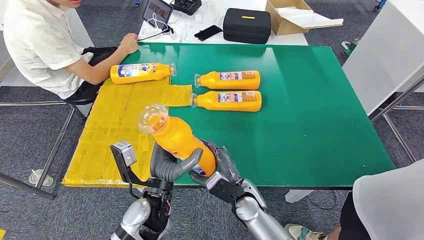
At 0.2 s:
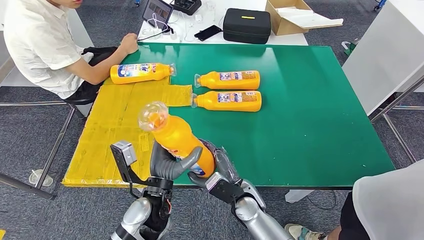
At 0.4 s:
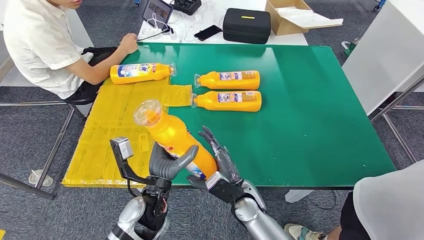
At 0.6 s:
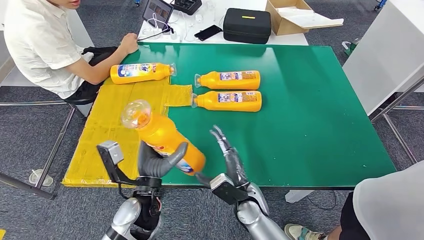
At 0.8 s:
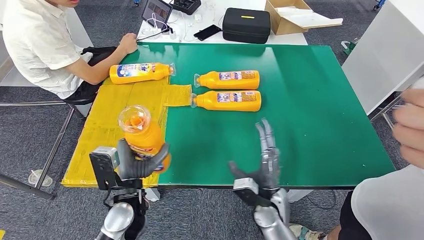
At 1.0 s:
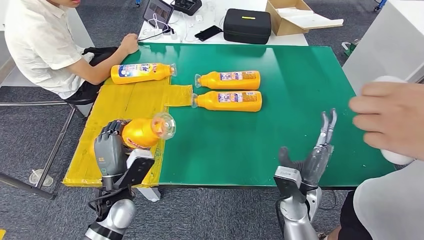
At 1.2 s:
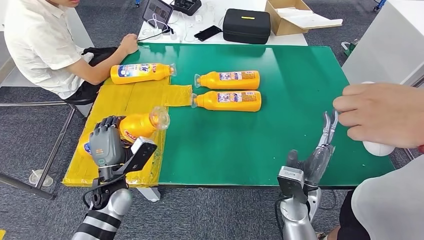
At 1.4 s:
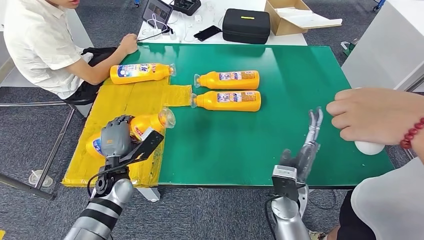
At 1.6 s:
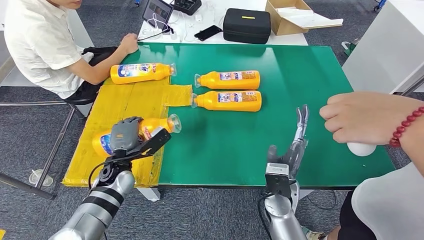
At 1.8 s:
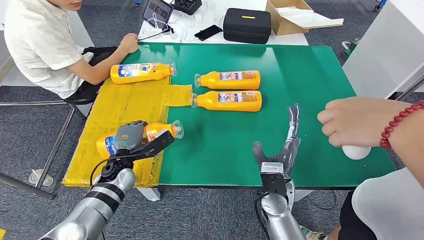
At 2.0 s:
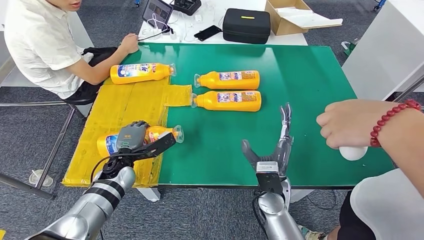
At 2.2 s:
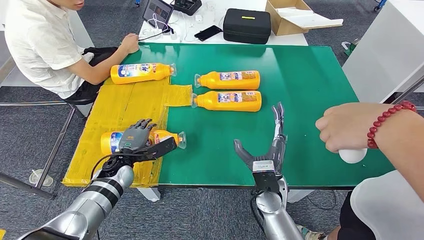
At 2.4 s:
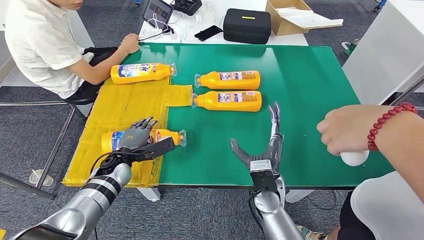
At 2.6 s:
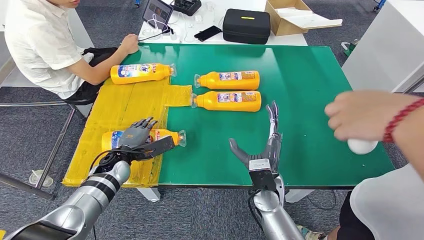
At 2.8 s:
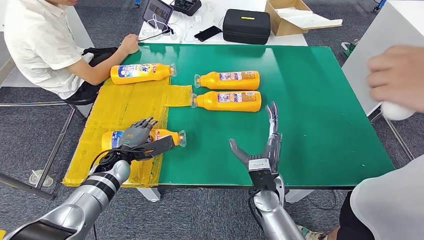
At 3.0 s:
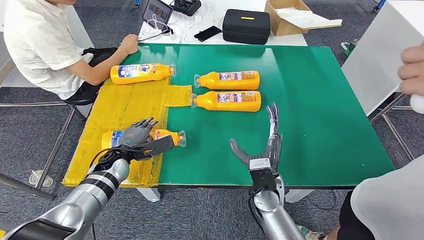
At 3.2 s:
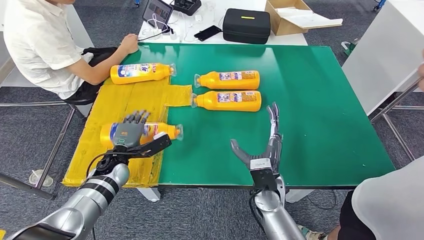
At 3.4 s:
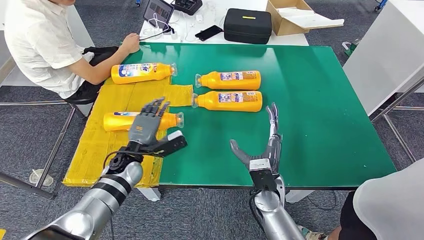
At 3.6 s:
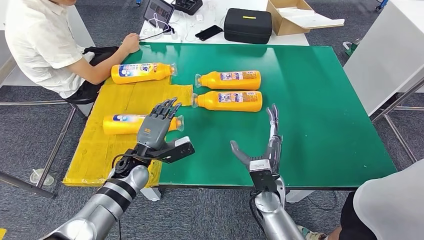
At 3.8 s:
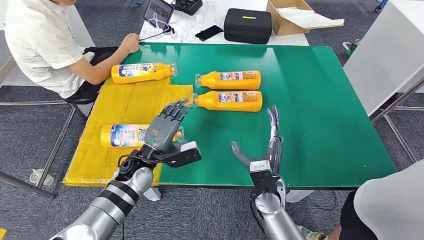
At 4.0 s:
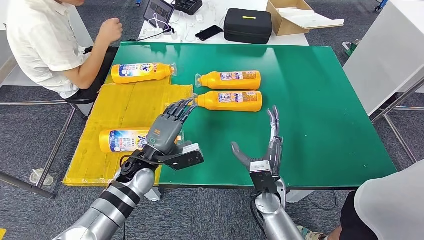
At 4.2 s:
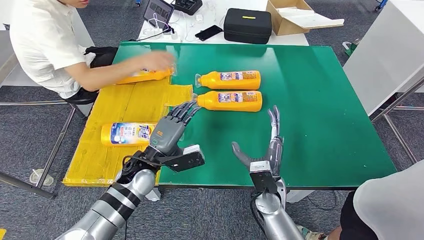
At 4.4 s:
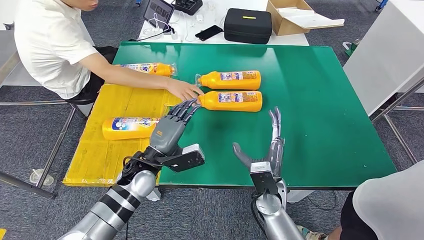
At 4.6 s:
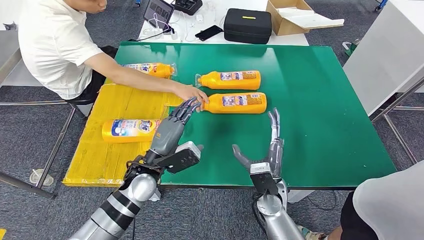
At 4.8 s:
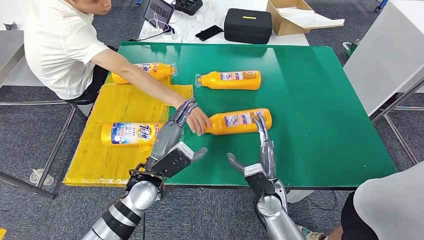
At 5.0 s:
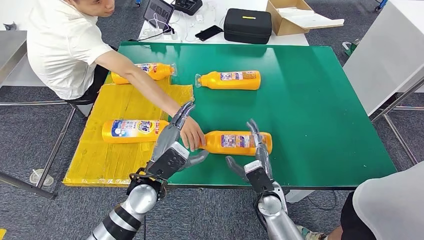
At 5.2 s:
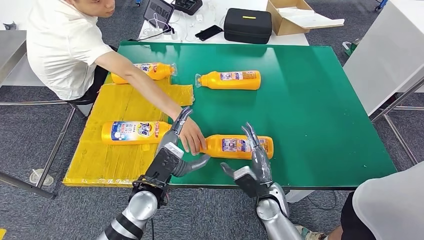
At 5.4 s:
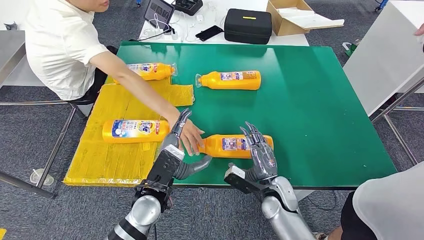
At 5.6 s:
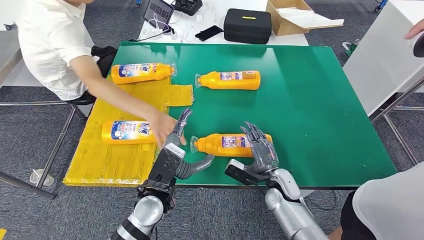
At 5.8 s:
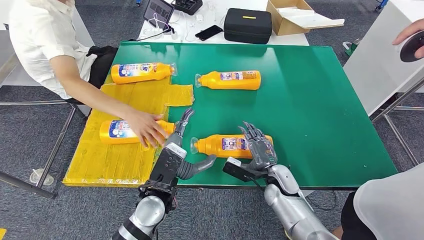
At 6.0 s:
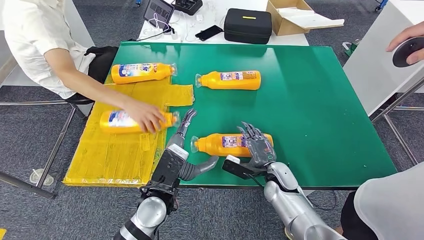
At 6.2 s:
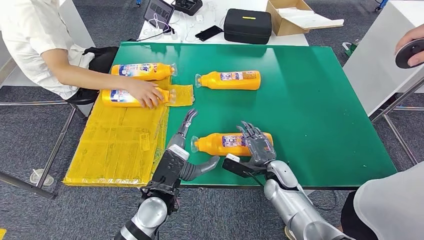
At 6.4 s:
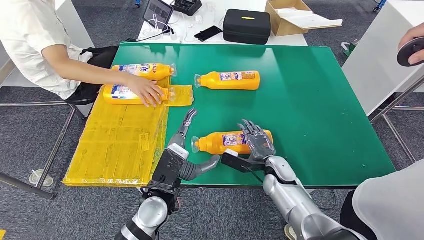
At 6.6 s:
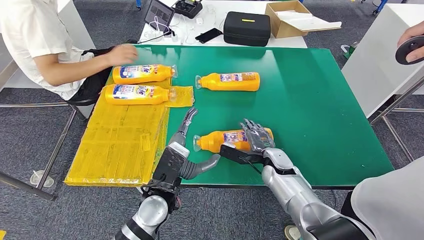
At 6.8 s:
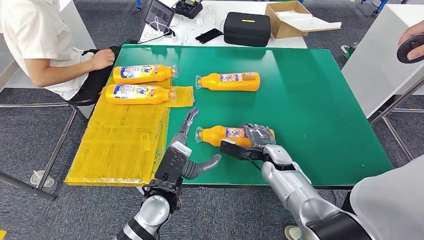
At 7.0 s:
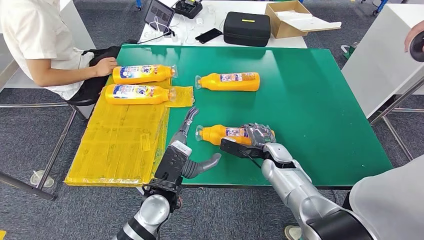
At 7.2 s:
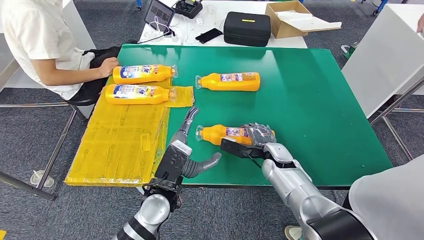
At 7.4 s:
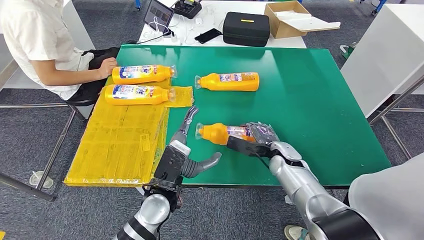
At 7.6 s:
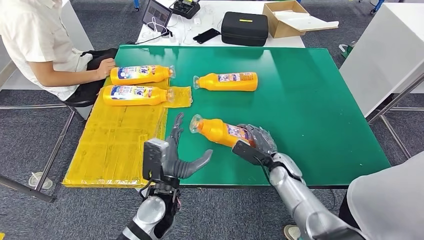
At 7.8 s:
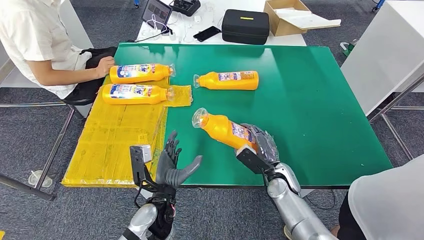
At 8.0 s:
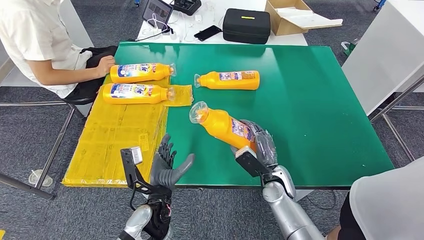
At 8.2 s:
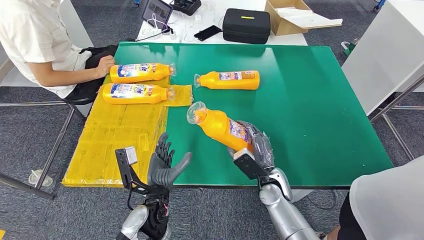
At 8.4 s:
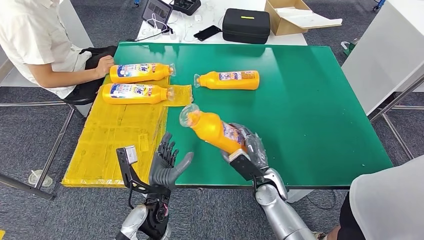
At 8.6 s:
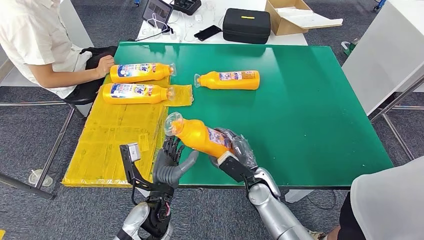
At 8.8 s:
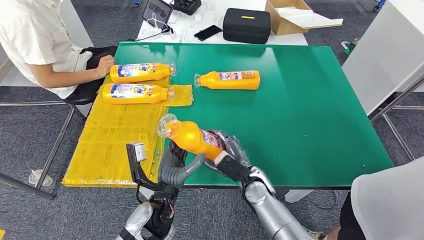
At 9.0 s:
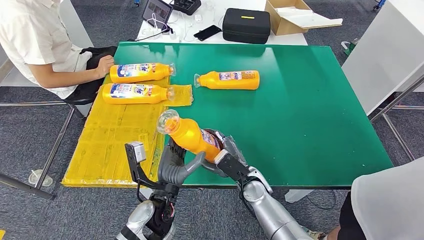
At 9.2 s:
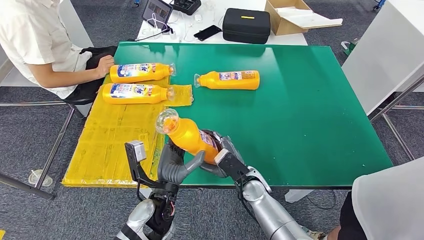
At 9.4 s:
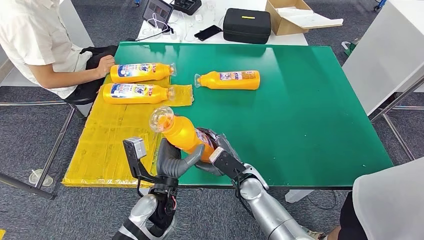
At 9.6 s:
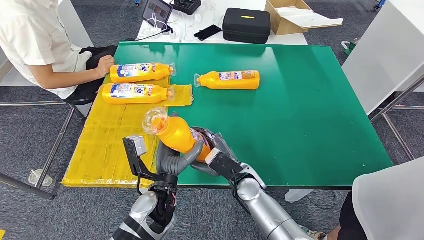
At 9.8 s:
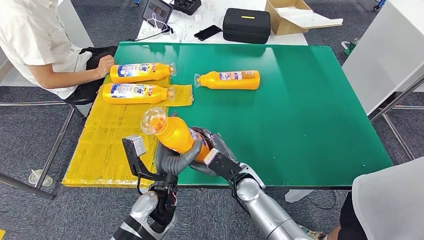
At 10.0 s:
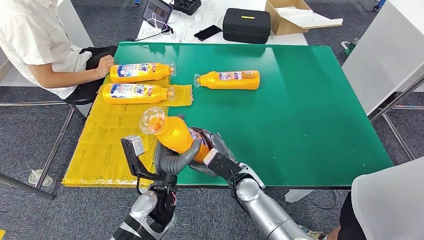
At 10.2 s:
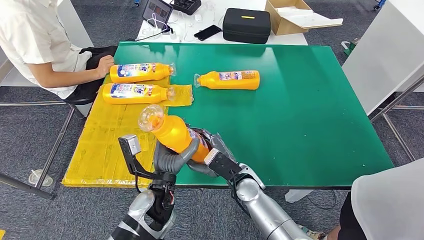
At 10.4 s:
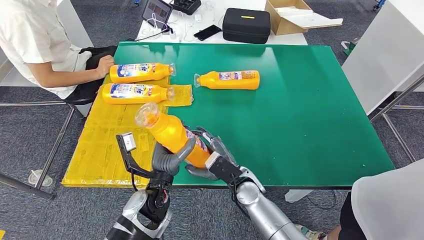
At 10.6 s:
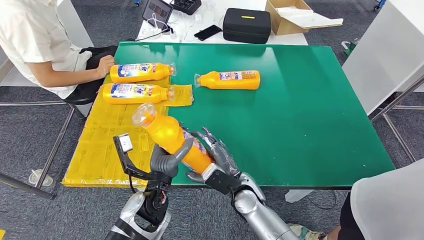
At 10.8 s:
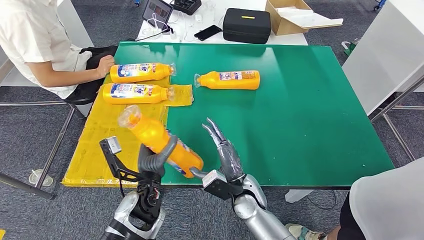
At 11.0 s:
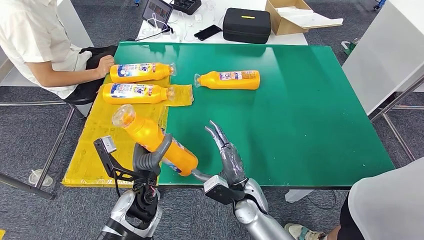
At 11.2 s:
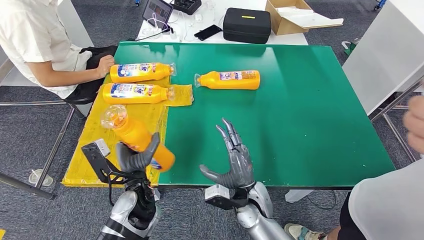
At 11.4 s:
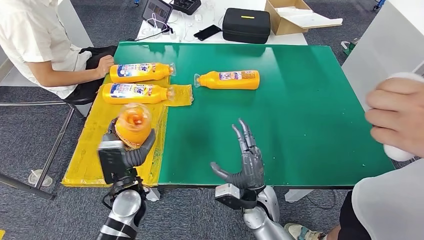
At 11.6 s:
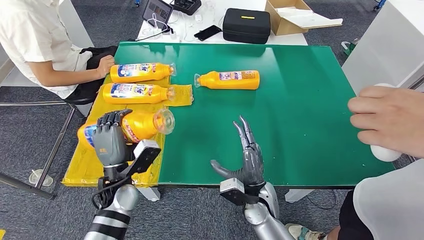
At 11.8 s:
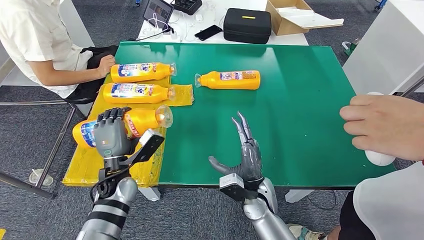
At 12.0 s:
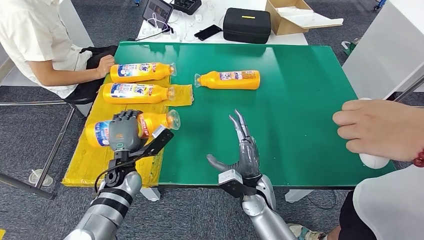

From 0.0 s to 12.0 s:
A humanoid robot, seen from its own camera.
Step, from 0.0 s to 2.6 s: Flip the fast-moving consumer goods bottle to the front side.
Step, from 7.2 s to 8.8 s: Pick up the fast-moving consumer goods bottle from the table.
From 0.0 s to 1.6 s: The left hand is displaced to the left and forward by approximately 15 cm; the right hand travels to the right by roughly 5 cm.
From 9.0 s to 10.4 s: The hands stay close to where they were, moving slightly.
From 10.4 s to 12.0 s: The left hand travels to the left and forward by roughly 15 cm.

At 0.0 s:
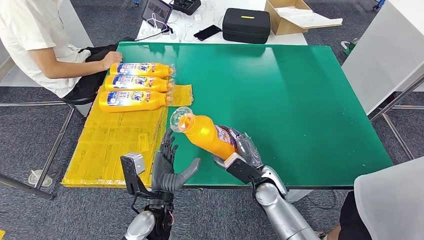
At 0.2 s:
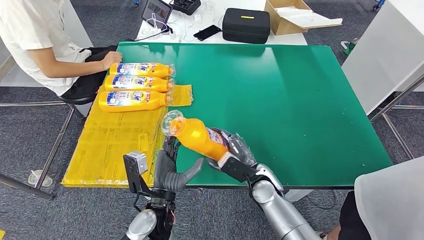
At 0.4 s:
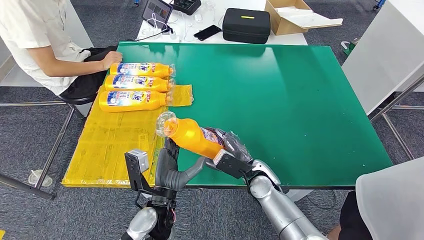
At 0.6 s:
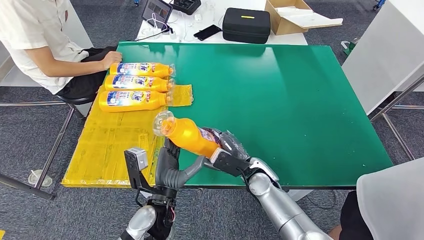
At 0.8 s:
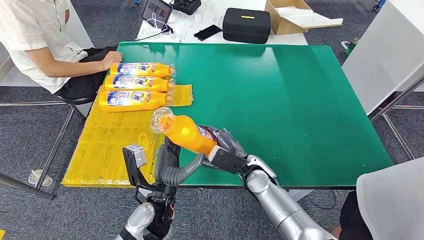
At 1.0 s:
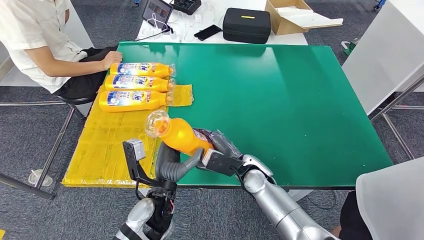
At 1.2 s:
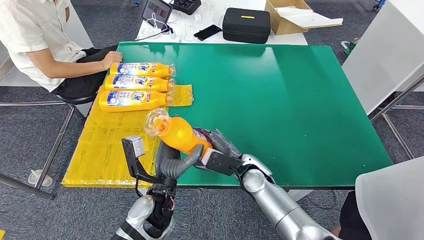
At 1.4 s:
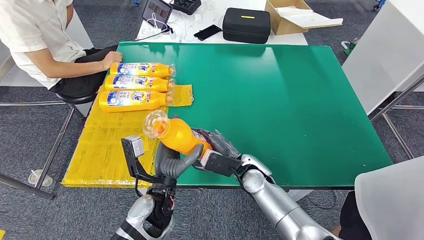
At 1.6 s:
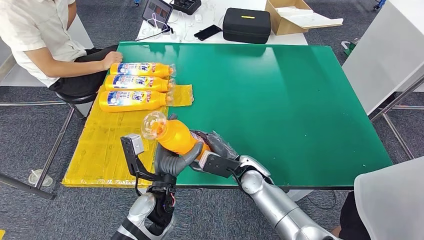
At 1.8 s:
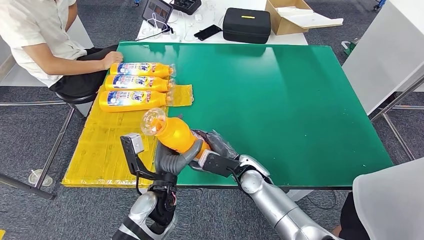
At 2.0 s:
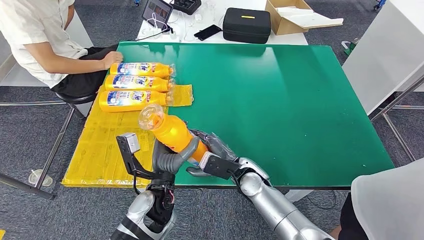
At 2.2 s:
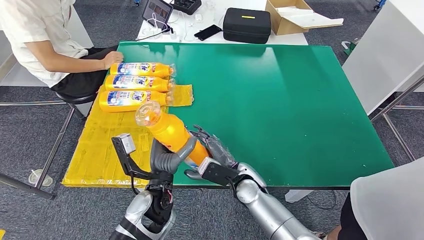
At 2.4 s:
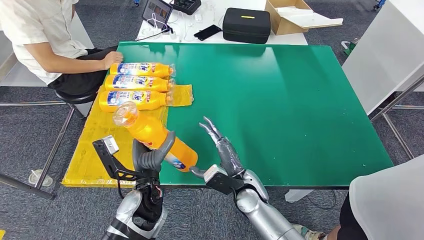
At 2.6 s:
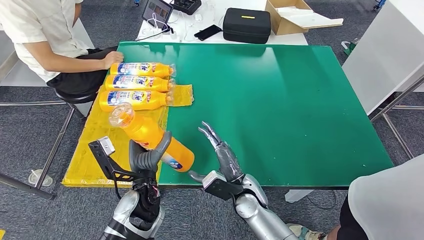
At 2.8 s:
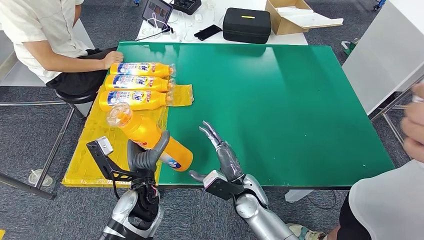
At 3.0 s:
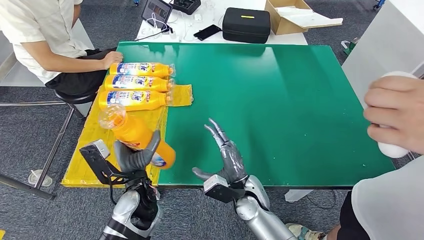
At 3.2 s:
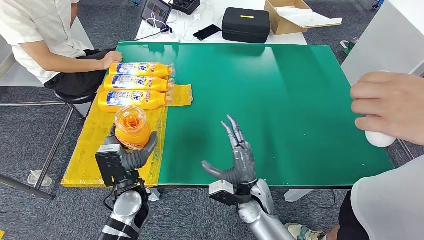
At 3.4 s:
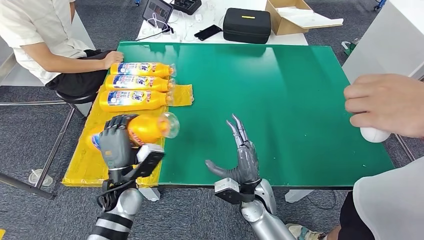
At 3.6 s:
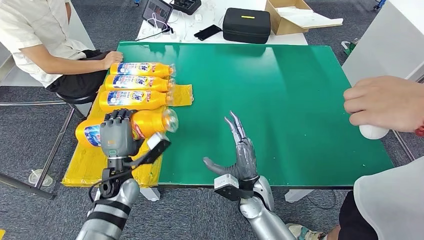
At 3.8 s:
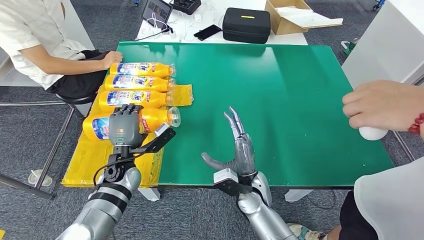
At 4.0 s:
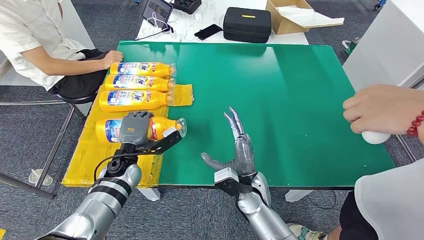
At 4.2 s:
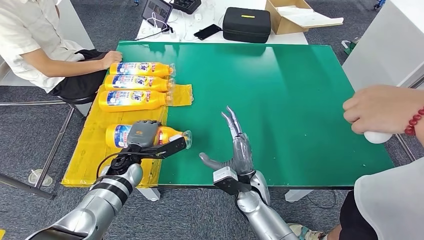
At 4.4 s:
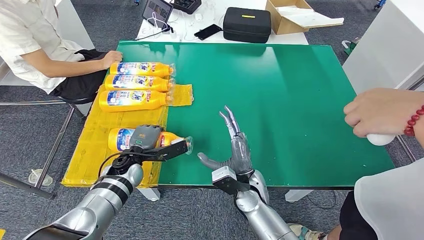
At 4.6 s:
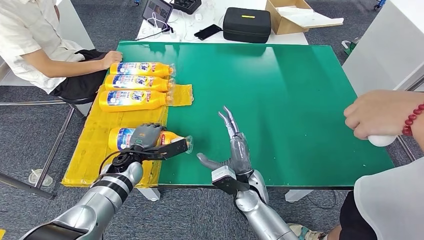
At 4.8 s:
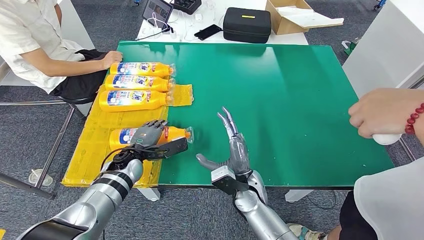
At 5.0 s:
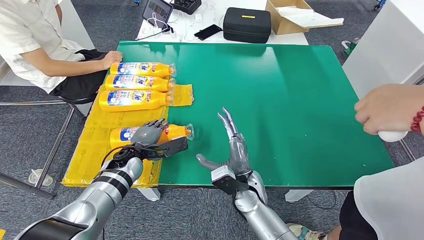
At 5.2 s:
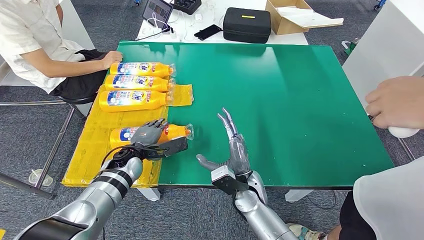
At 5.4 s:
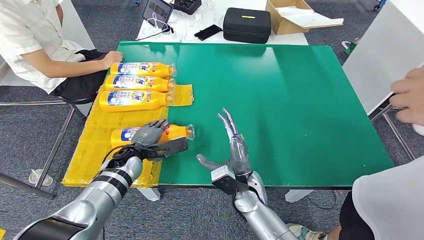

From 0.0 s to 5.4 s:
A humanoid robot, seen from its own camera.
Step, from 0.4 s to 5.4 s: Flip the fast-moving consumer goods bottle to the front side.
From 0.0 s to 1.4 s: The right hand ends up about 5 cm from where it was.
From 1.4 s to 2.8 s: The right hand is displaced backward by roughly 5 cm.
